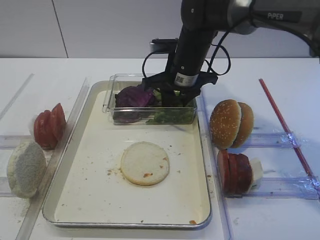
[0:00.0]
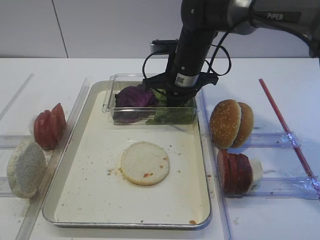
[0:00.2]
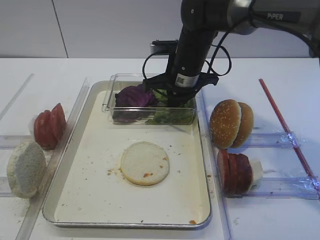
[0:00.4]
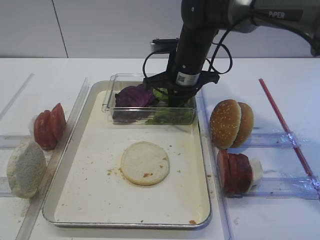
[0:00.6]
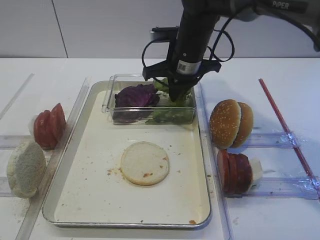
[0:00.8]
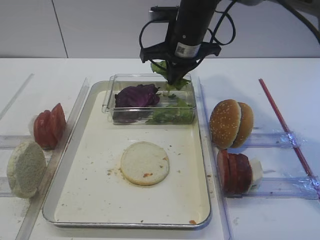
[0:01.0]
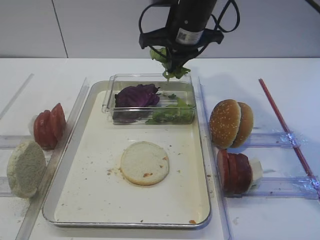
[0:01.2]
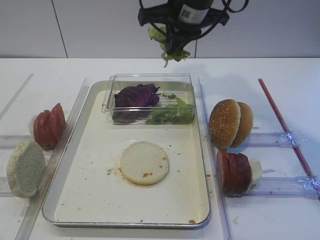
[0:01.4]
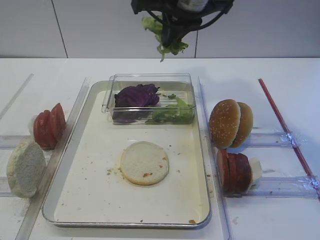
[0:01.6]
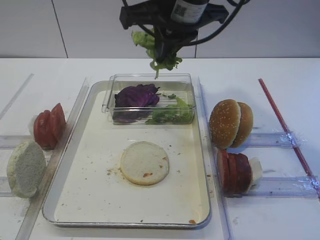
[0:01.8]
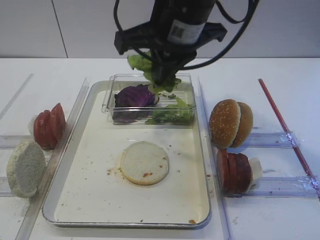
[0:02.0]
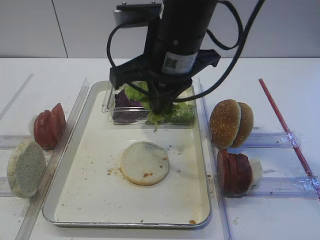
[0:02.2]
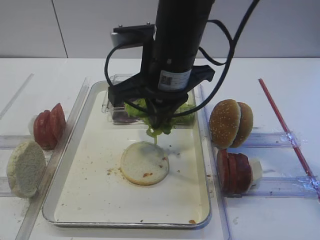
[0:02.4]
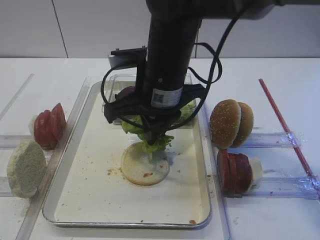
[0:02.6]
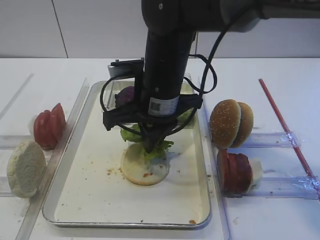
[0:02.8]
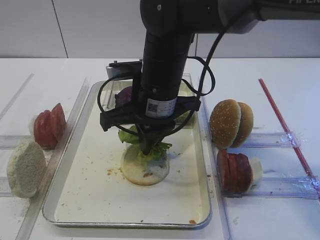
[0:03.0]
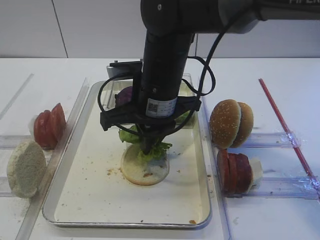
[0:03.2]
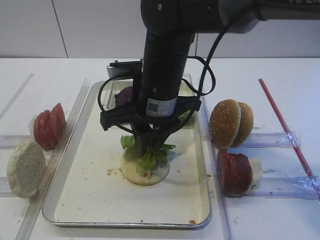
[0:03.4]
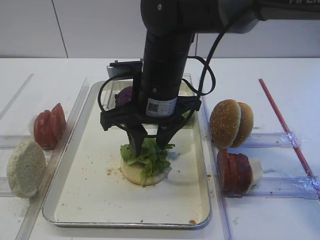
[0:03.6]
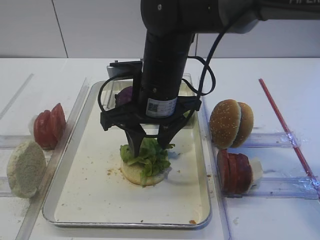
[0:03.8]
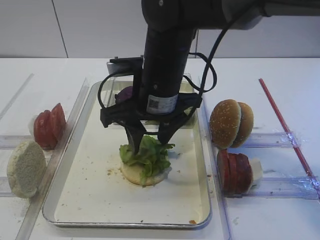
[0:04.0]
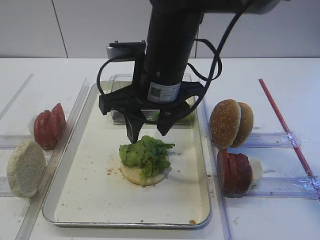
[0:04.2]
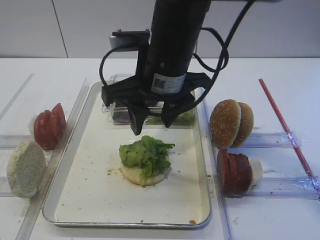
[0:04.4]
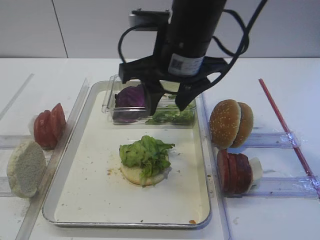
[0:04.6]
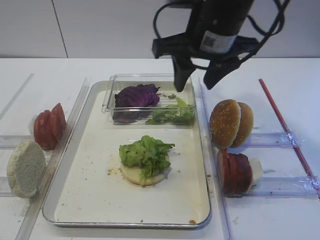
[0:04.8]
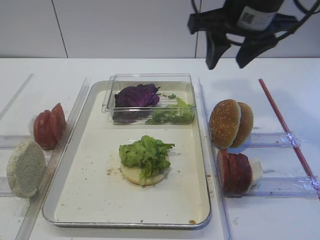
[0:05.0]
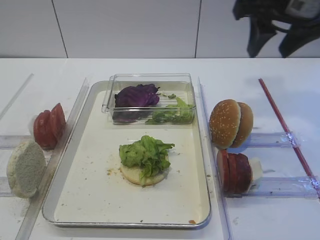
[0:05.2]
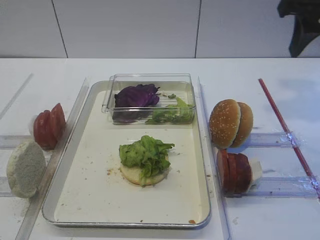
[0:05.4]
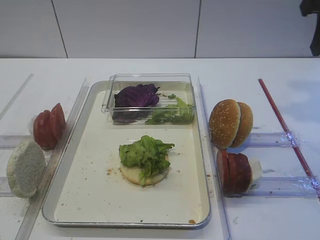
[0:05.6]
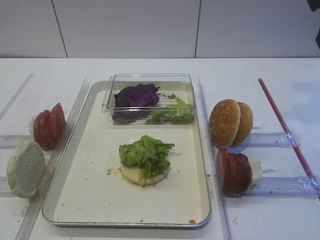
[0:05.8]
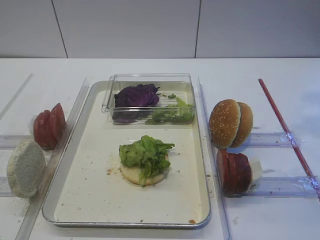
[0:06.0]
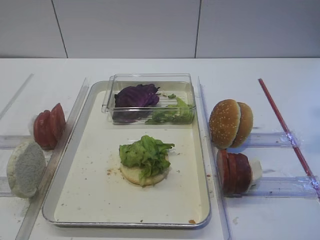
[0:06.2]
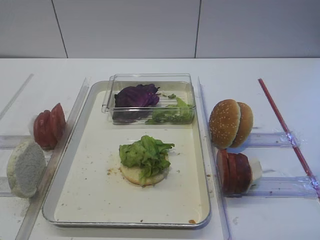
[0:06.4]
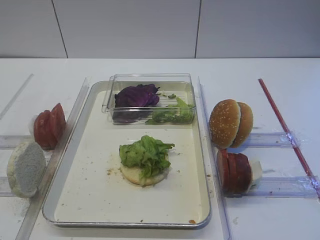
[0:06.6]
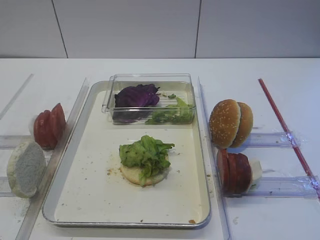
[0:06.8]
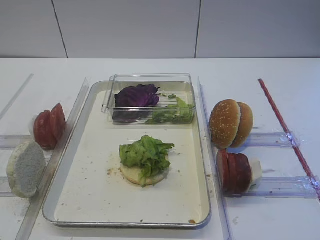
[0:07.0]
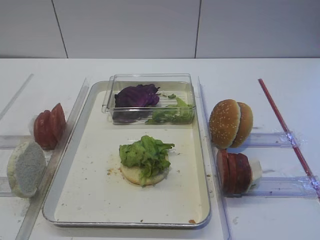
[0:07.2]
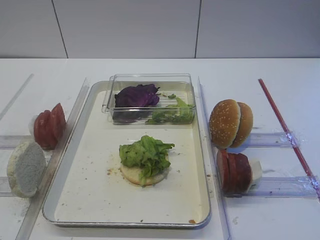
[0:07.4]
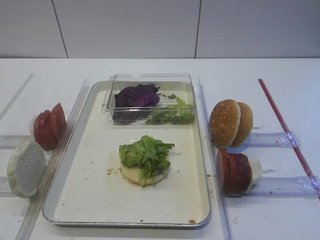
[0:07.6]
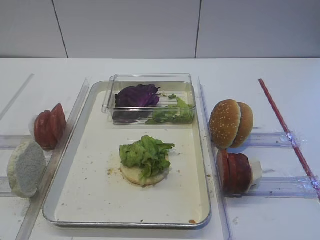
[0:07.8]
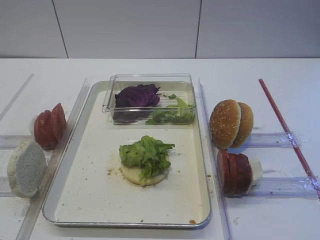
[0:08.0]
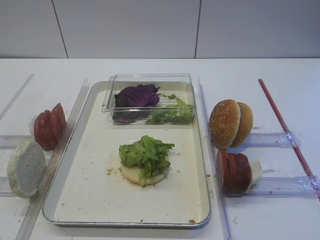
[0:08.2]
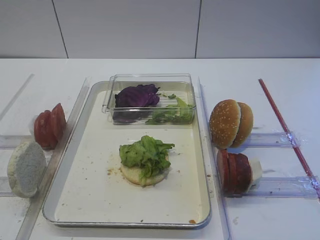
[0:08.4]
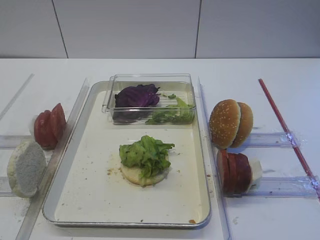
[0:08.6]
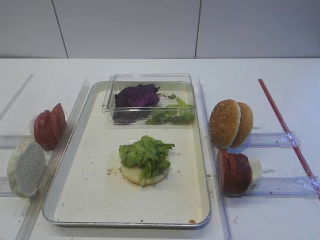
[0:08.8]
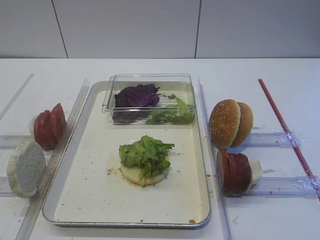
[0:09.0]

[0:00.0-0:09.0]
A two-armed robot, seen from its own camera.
Step, 0:01.2 to 0:04.2: Place the lettuce leaf on the bread slice with the right gripper.
0:00.0 to 0:01.6: The right gripper is displaced upward by approximately 15 cm, and closes up.
0:01.6 to 0:03.0: The right gripper travels downward, backward and to the left by approximately 15 cm.
0:03.0 to 0:04.4: The right gripper opens up.
0:04.4 to 0:06.0: The right gripper moves to the right and upward, approximately 30 cm.

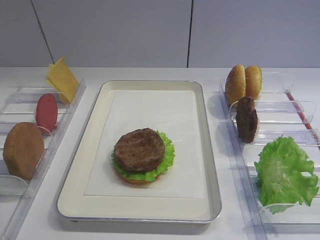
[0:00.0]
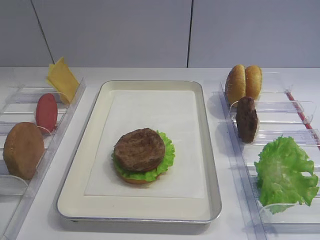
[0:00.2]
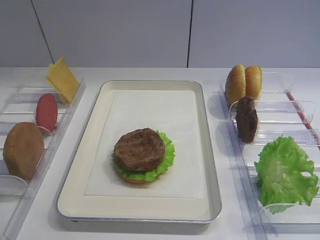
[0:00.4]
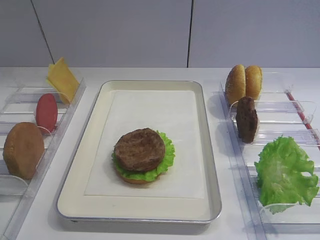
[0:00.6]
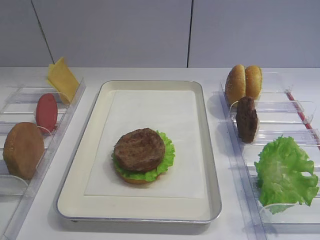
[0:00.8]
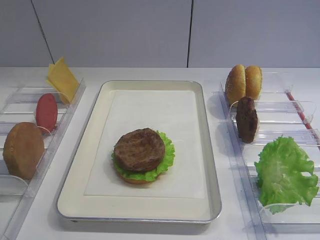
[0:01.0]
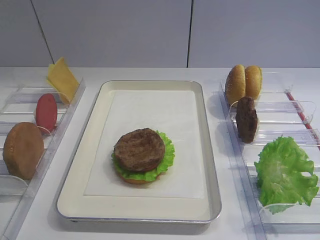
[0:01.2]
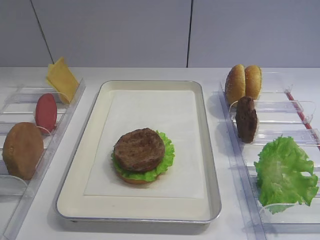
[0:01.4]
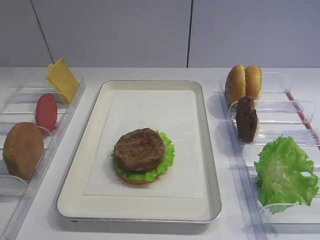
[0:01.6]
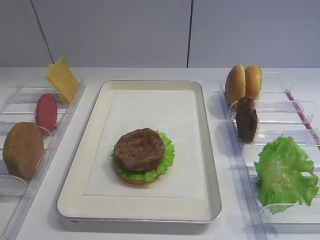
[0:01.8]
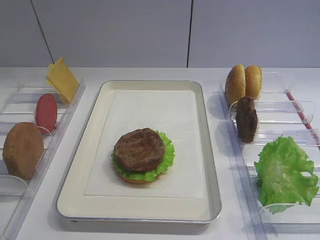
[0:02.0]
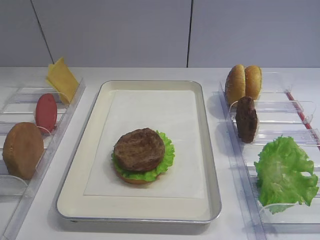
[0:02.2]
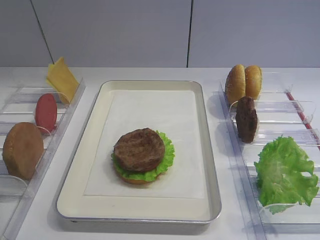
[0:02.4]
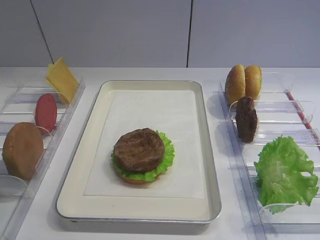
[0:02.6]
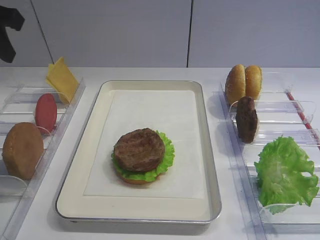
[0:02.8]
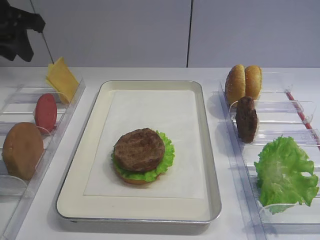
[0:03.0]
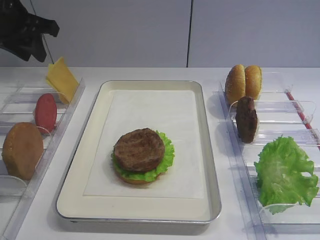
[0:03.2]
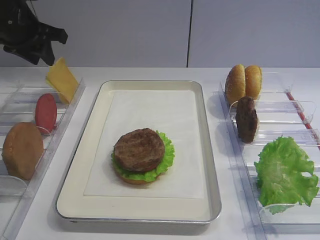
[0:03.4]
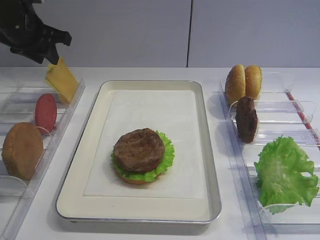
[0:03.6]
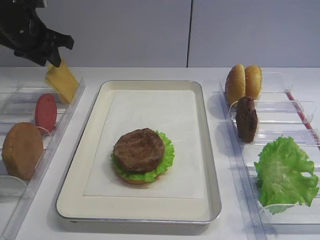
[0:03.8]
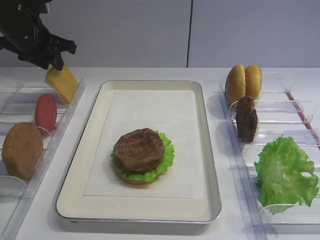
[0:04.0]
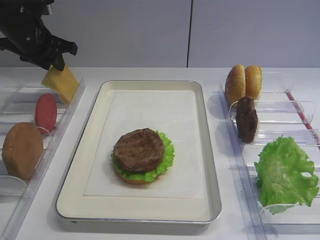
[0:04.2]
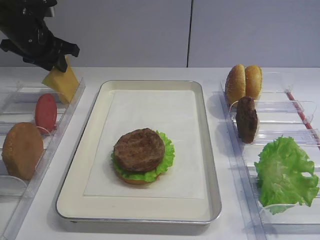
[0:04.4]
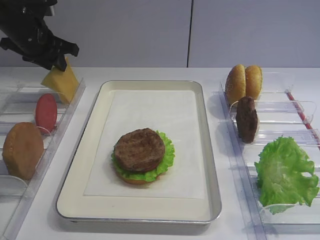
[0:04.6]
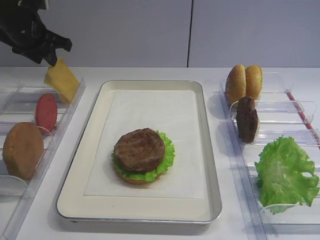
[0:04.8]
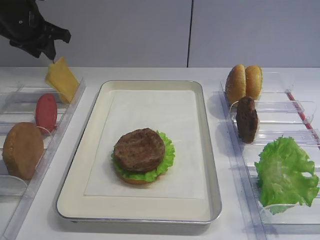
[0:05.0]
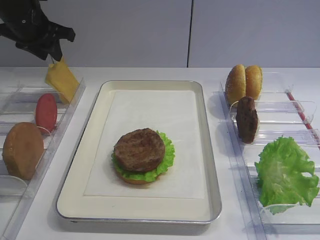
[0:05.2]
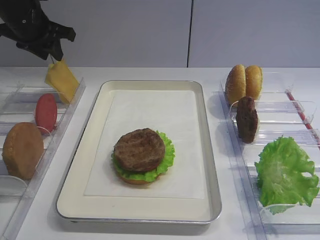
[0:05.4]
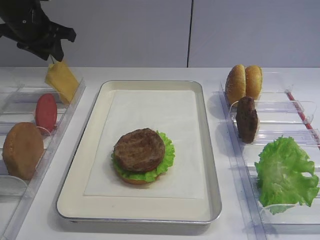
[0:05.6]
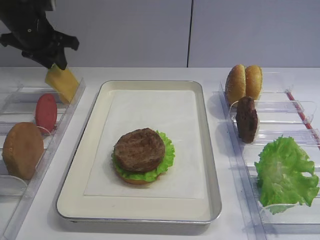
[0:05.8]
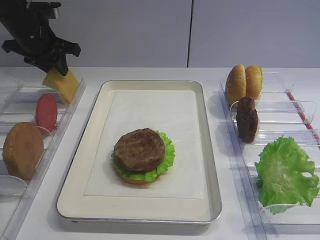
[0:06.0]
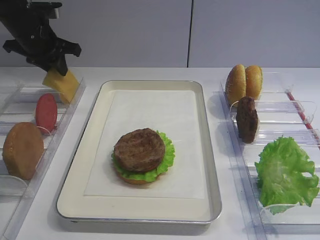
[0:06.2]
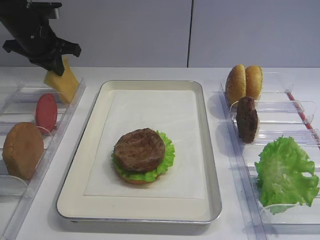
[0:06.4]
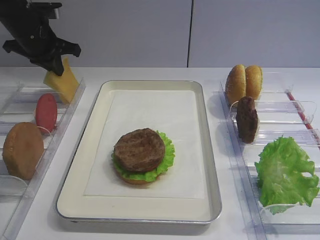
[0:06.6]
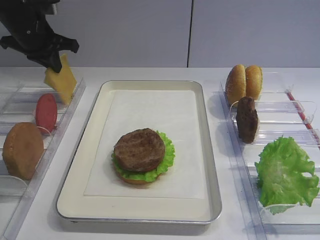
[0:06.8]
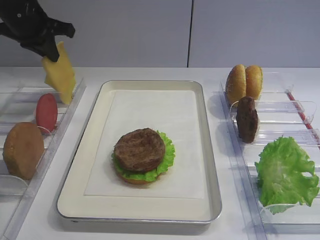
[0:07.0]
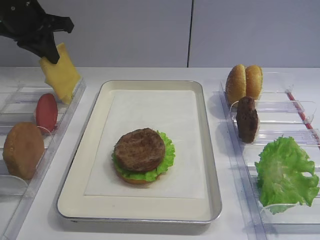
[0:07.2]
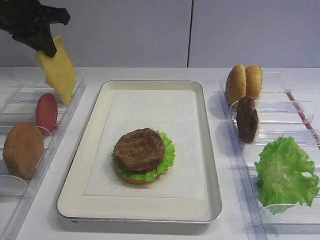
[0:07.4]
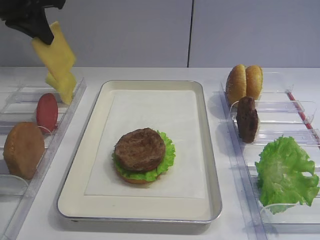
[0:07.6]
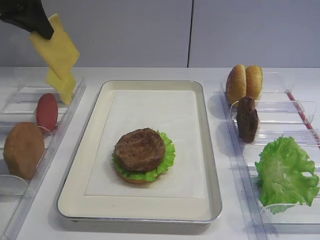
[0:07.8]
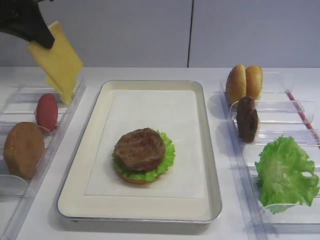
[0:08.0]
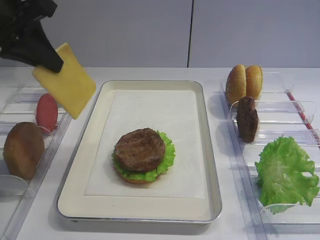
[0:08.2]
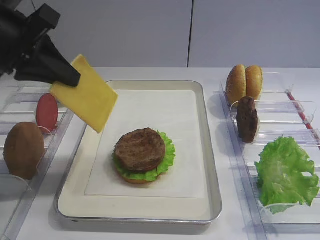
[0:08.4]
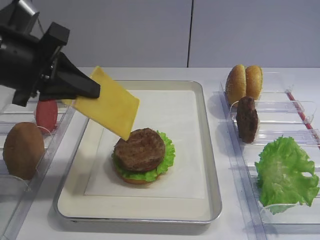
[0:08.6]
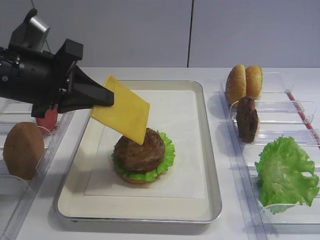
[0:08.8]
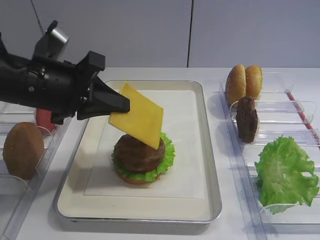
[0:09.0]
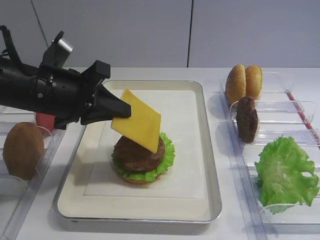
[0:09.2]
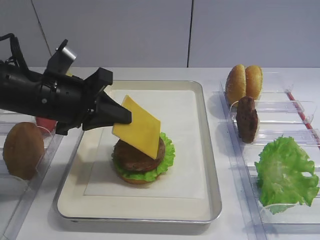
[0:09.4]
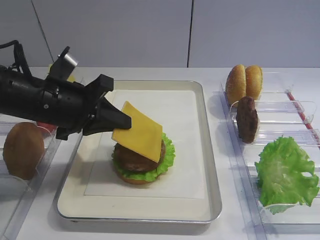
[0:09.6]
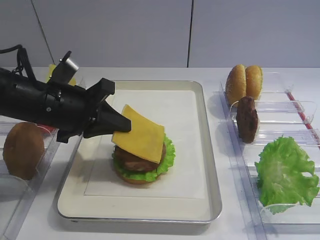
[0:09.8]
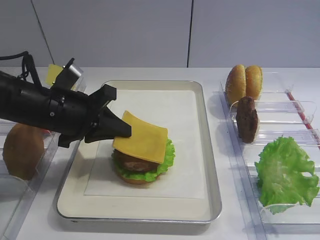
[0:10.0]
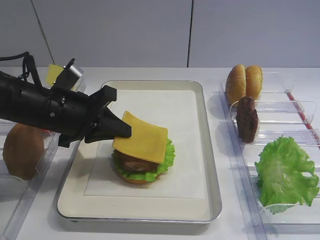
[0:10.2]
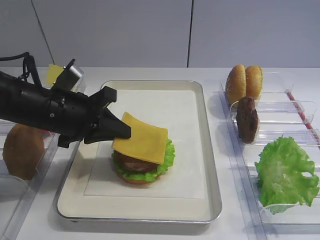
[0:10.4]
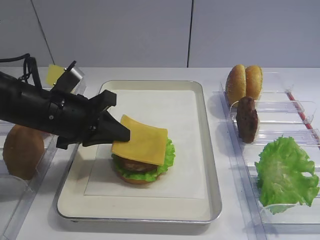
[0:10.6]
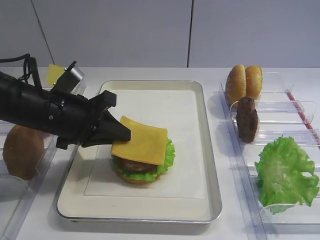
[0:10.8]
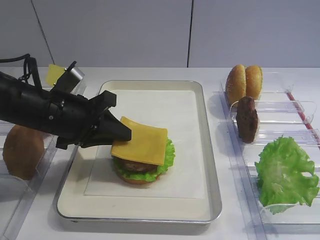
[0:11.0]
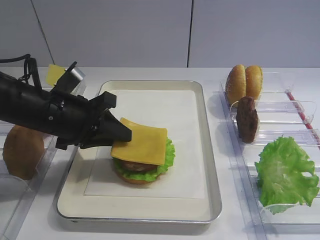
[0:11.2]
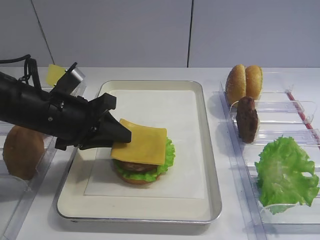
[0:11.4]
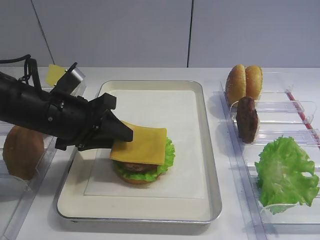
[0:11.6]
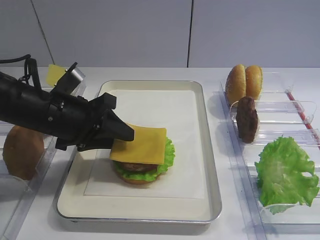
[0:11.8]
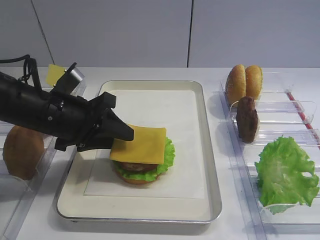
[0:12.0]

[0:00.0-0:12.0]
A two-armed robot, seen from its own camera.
Step, 0:00.0 to 0:07.8: Pick up the cheese slice with the left gripper.
0:01.6 to 0:03.0: The left gripper is displaced forward by approximately 35 cm.
0:03.0 to 0:04.4: The left gripper travels forward and downward by some 15 cm.
0:06.0 to 0:07.6: The left gripper travels upward and backward by roughly 10 cm, and closes up.
0:07.6 to 0:09.0: The left gripper travels backward, downward and to the right by some 20 cm.
0:09.0 to 0:10.4: The left gripper heads downward, covering roughly 5 cm.
0:10.4 to 0:12.0: The left gripper opens its fingers.

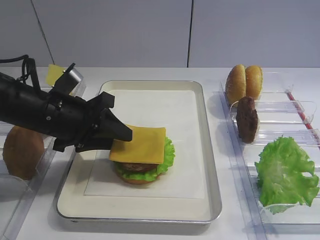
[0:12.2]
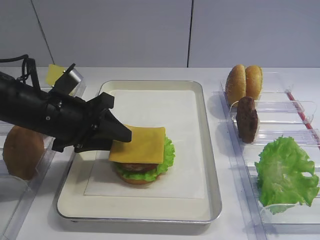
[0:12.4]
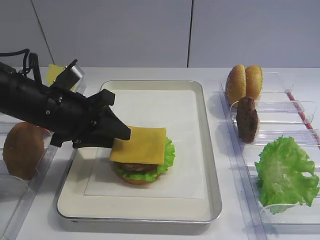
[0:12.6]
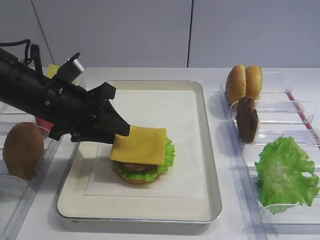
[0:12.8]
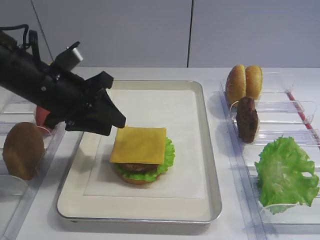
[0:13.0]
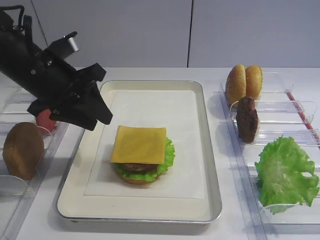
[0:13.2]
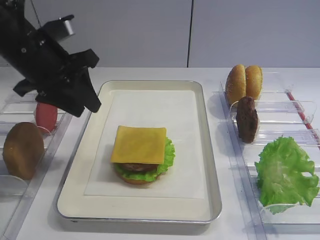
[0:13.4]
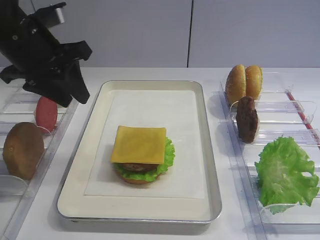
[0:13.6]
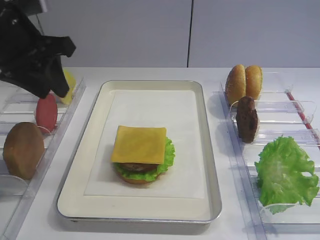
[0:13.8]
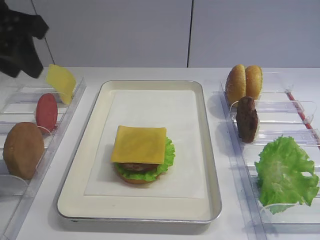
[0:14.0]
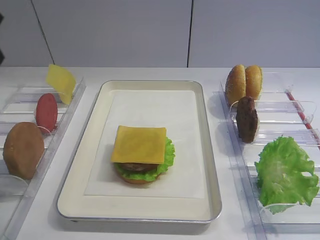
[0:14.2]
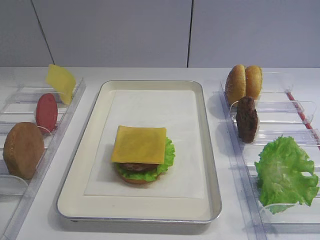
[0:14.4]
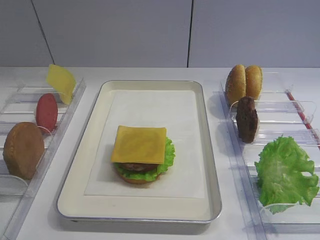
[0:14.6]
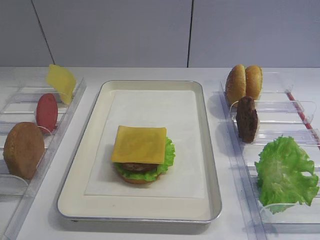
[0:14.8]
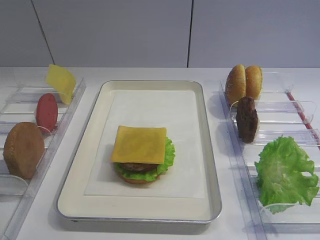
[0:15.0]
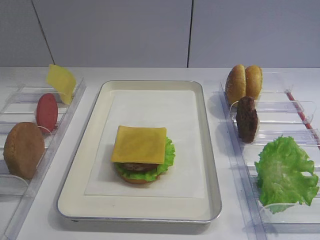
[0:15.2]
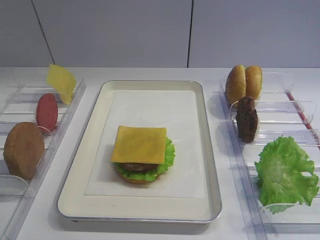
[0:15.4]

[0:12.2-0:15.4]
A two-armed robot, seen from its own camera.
0:12.2 to 0:13.8: The left gripper moves upward, approximately 10 cm.
0:13.8 to 0:15.4: The left gripper travels backward by about 30 cm.
